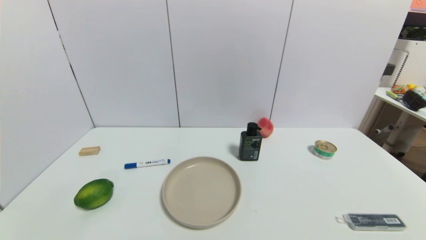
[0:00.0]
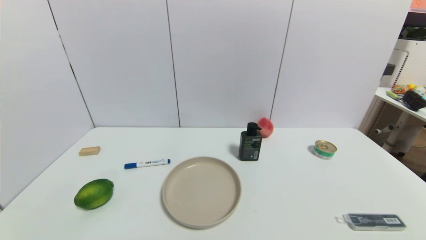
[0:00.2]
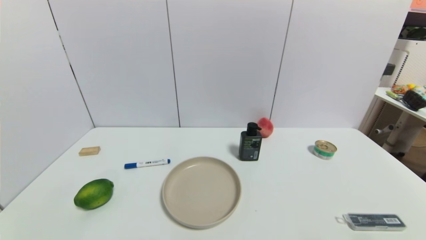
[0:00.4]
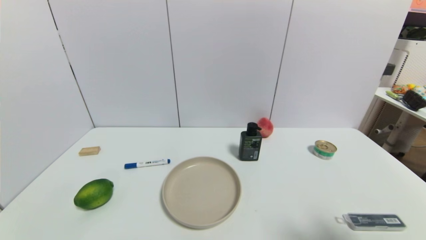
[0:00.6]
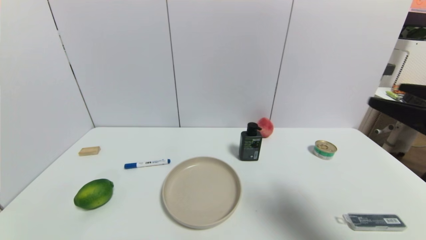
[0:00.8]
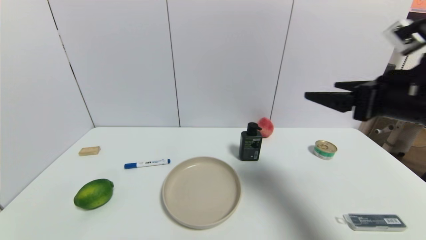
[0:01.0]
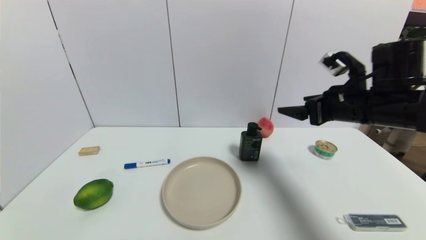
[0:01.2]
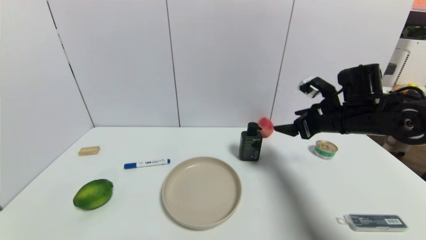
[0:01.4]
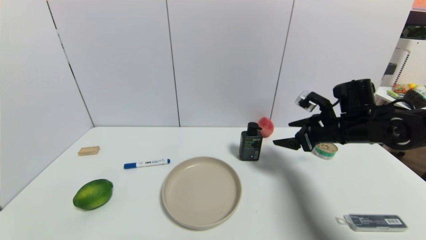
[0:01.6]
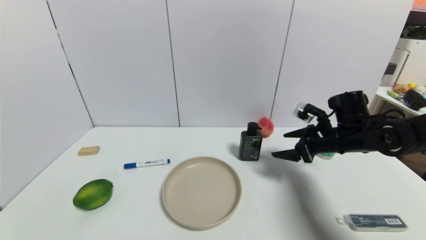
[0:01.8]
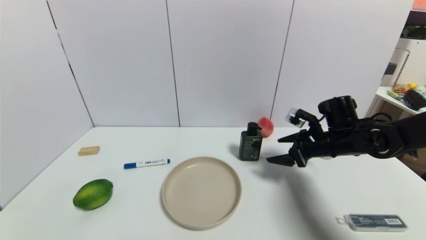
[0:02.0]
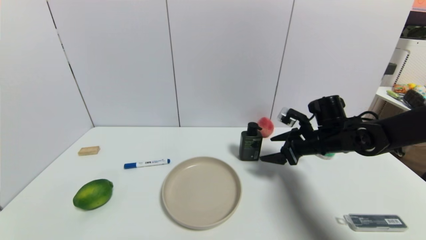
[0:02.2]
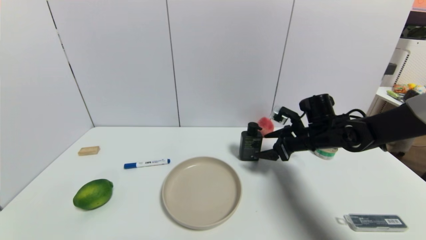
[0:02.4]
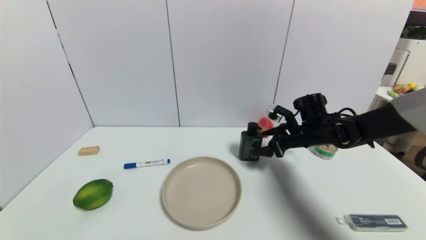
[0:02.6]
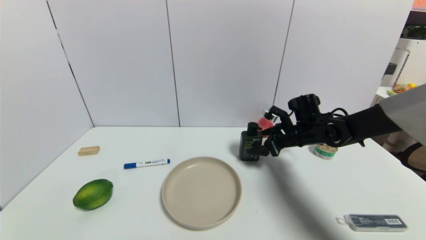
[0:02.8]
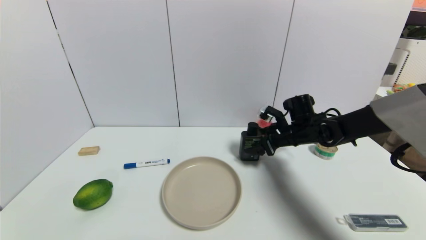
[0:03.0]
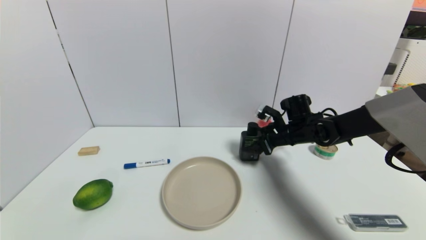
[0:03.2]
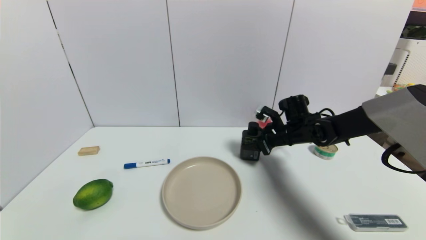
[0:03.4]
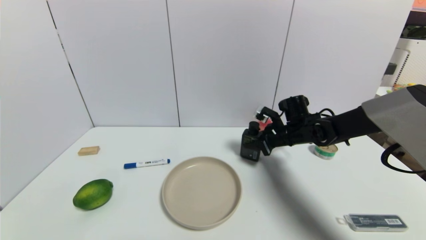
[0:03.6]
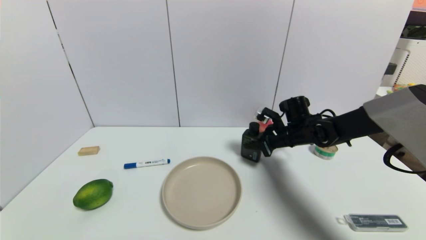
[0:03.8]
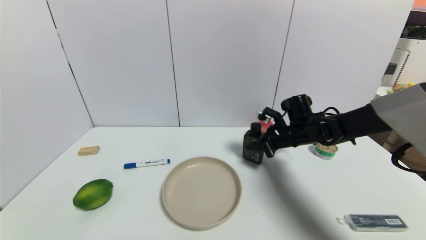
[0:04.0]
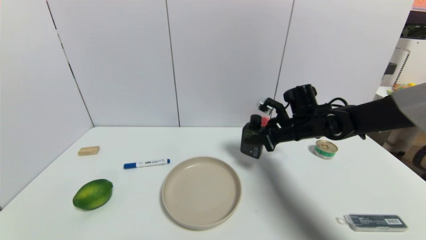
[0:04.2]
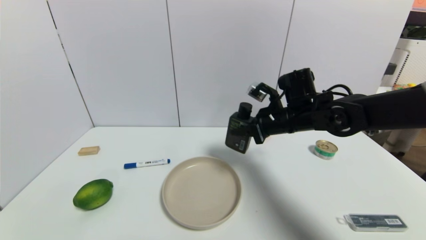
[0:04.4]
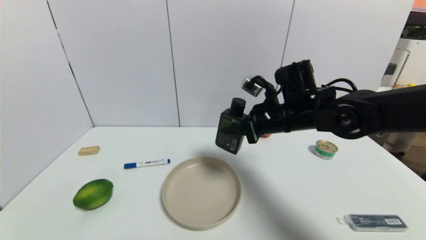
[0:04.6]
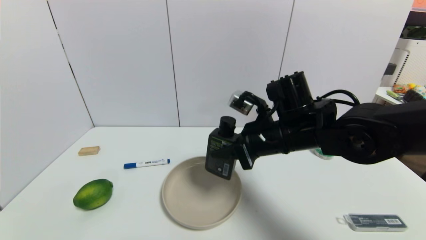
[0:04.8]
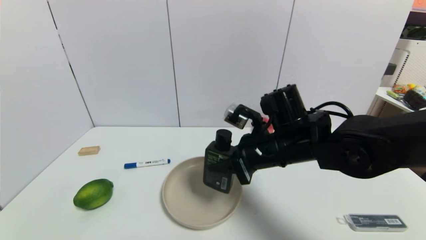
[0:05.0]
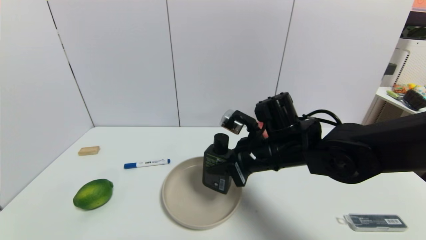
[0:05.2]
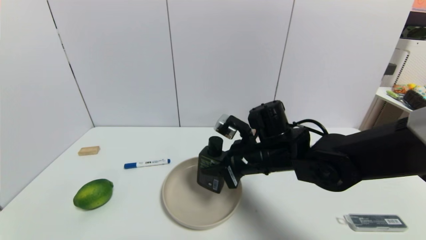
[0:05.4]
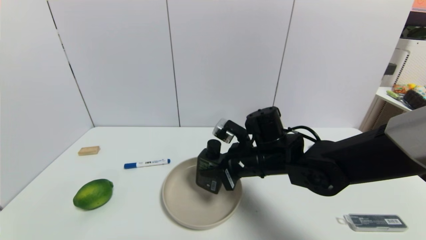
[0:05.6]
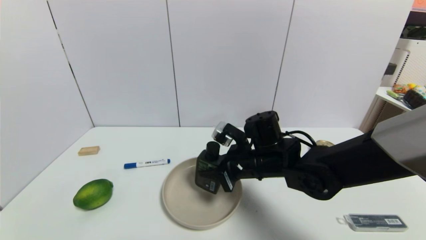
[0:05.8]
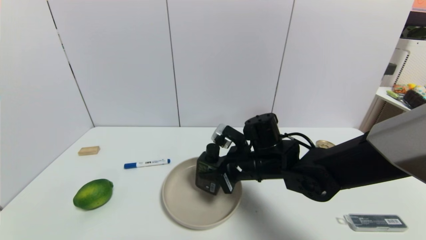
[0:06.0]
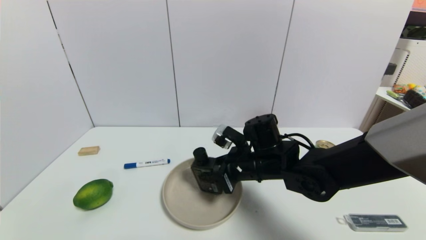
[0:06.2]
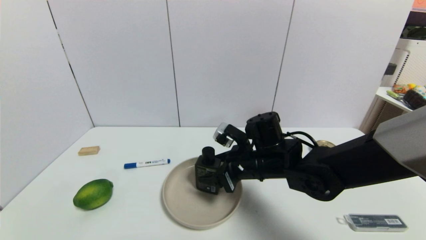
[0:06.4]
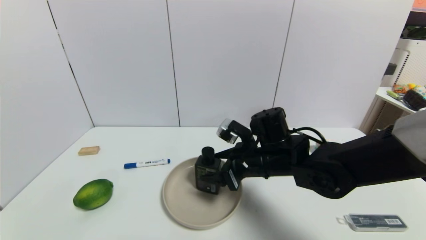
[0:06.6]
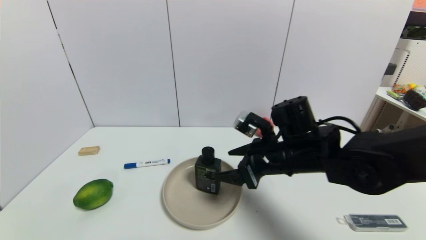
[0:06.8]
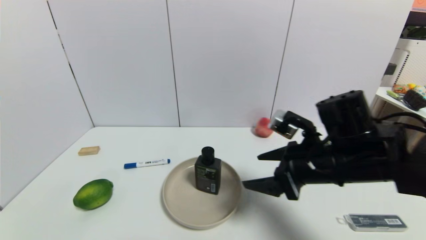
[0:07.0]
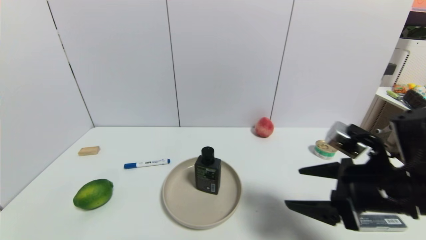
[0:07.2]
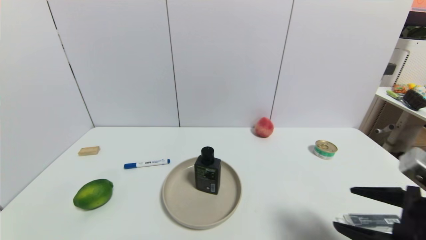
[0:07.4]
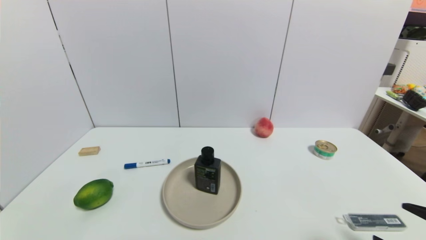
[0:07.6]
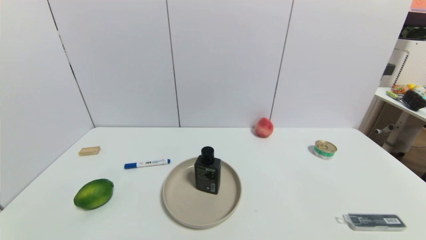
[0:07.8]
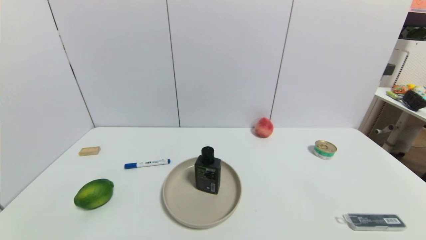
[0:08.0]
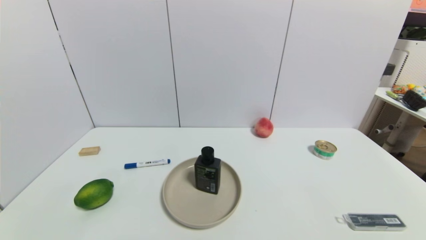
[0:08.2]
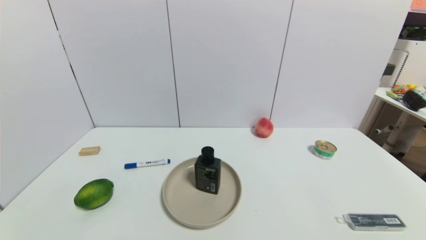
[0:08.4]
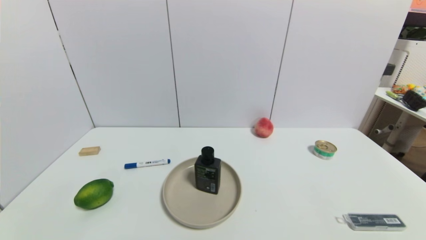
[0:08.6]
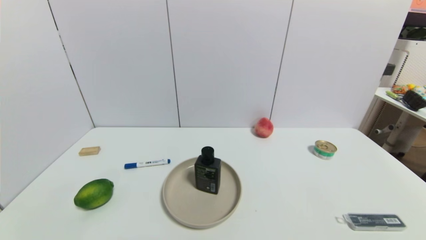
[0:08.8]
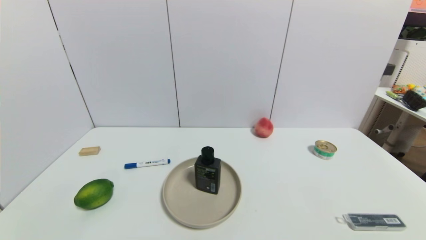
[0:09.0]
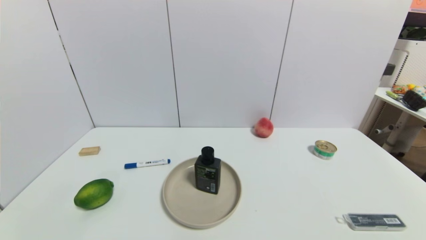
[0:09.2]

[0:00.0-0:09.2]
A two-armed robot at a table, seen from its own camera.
Task of the whole recording: use a gripper to pick the target object and place on the brown plate.
Step, 0:00.0 to 0:03.4: Grasp the hard facial cleanser with the right gripper.
Step, 0:03.6 to 0:06.8: Place the hard facial cleanser on the brown plate with the right gripper.
0:00.0 to 0:01.6: The right gripper travels forward by some 35 cm.
0:01.6 to 0:03.0: The right gripper shifts some 10 cm forward, downward and to the left.
0:03.0 to 0:04.6: The right gripper goes about 15 cm upward, backward and to the left, and closes its fingers.
0:04.6 to 0:06.2: The right gripper shifts approximately 10 cm downward.
0:06.2 to 0:07.6: The right gripper shifts some 35 cm backward and to the right, and opens up.
